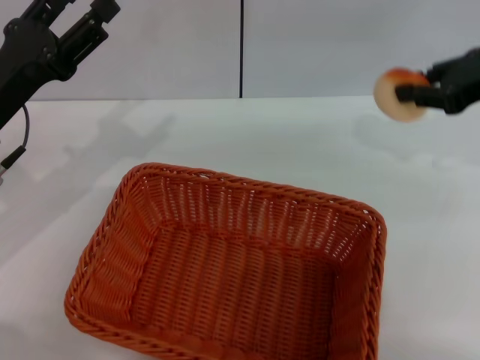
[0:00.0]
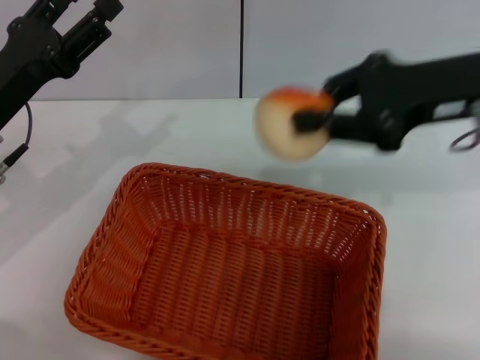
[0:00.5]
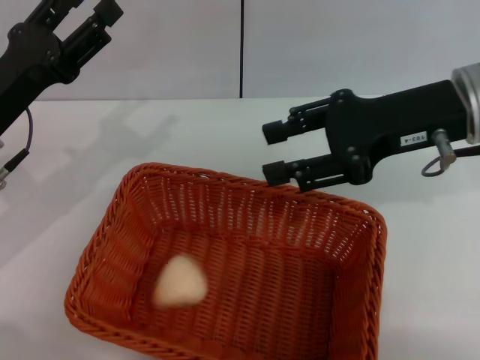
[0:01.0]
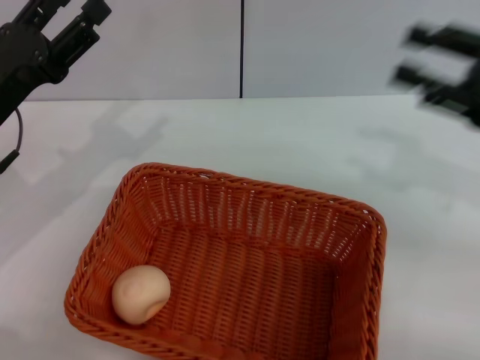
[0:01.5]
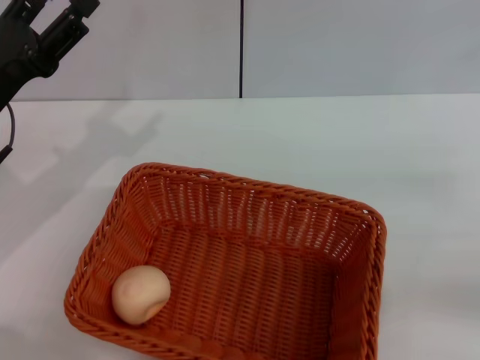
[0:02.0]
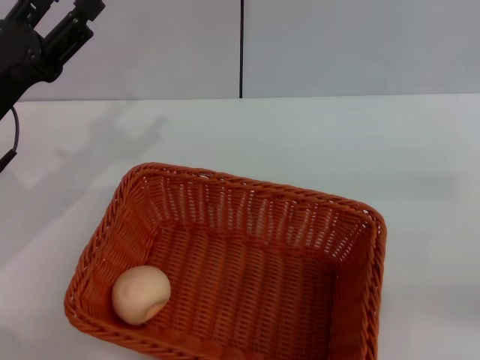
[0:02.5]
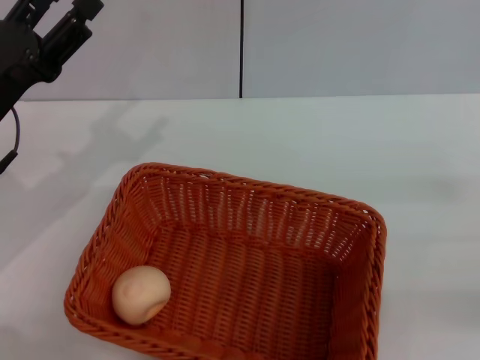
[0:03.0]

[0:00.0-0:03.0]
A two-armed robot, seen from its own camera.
Step, 0:00.0 to 0:01.0: Place the egg yolk pastry into the basket with the right gripper.
0:00.0 to 0:01.5: The right gripper goes roughly 5 cm backward, travels to the left and back again, approximately 10 cm each way, and opens.
0:01.5 to 0:03.0: The right gripper goes some 15 cm downward, backward and to the right.

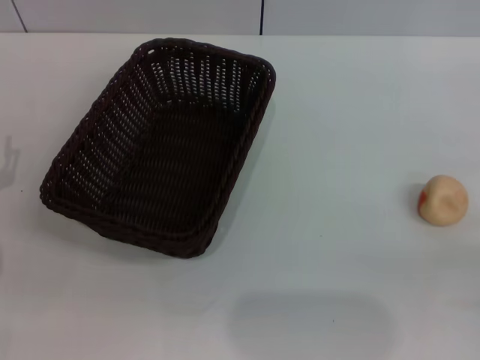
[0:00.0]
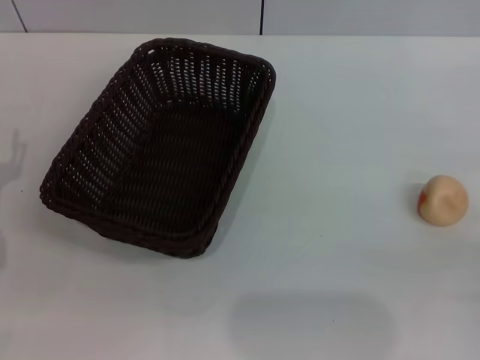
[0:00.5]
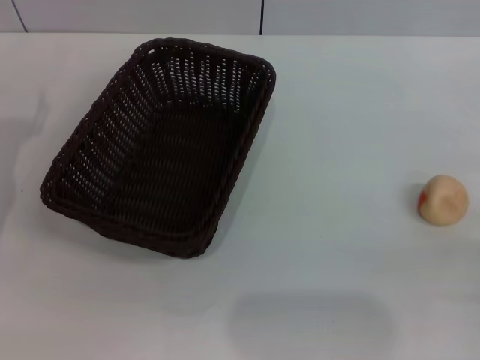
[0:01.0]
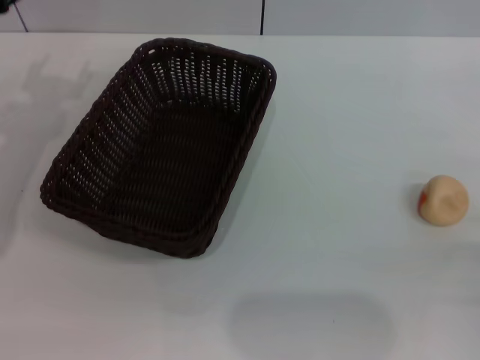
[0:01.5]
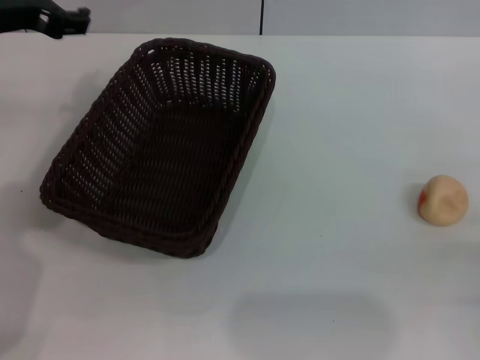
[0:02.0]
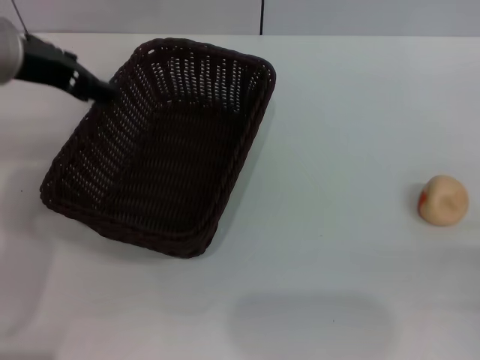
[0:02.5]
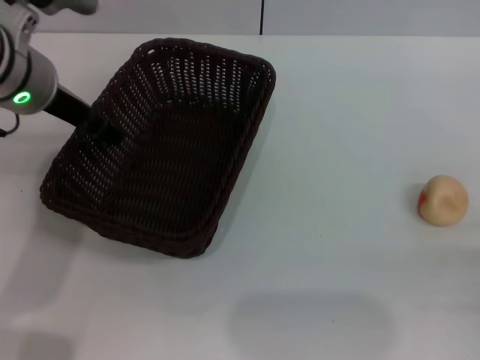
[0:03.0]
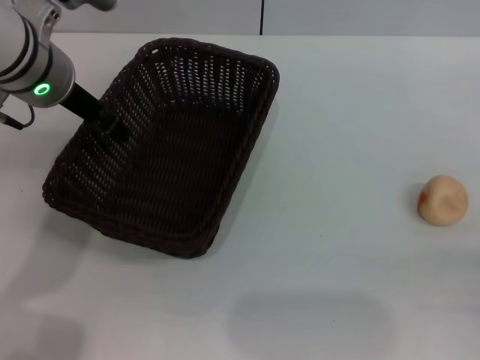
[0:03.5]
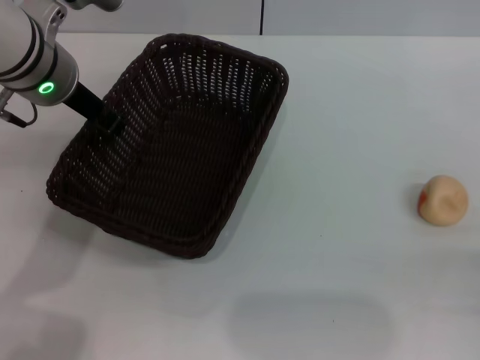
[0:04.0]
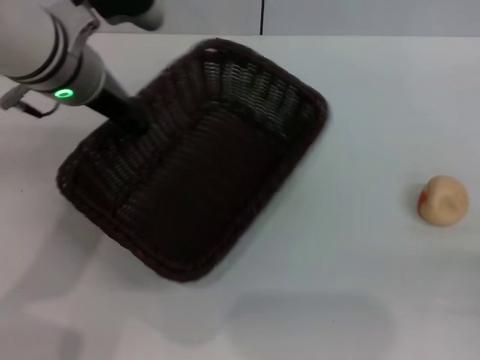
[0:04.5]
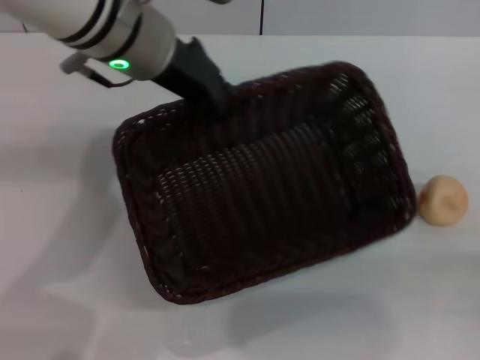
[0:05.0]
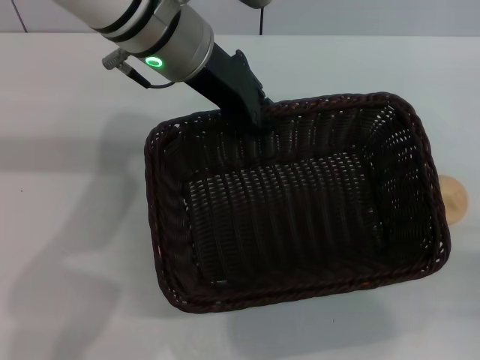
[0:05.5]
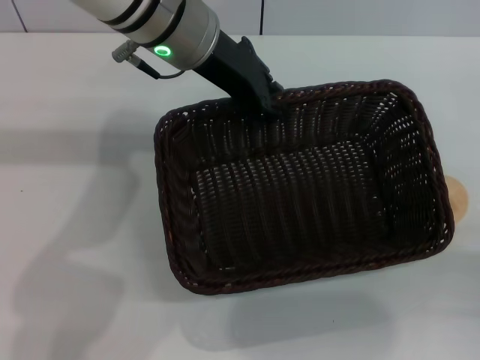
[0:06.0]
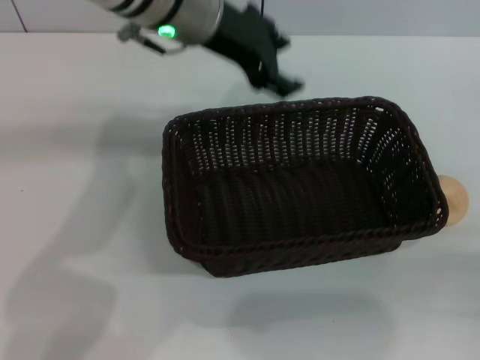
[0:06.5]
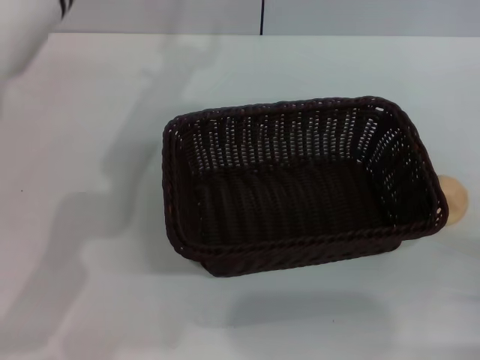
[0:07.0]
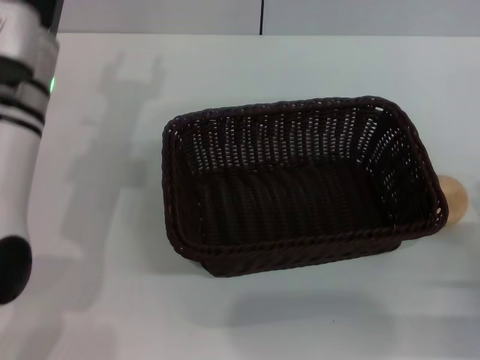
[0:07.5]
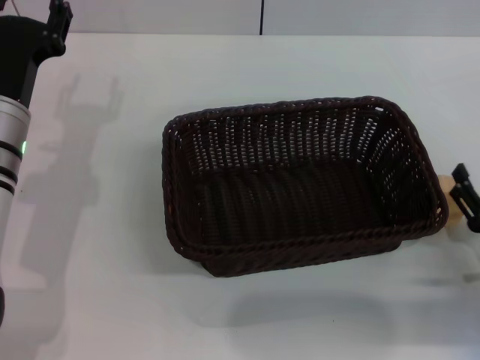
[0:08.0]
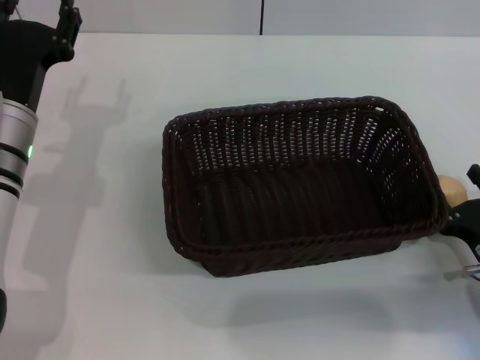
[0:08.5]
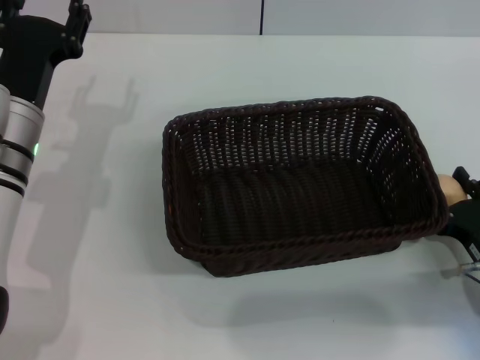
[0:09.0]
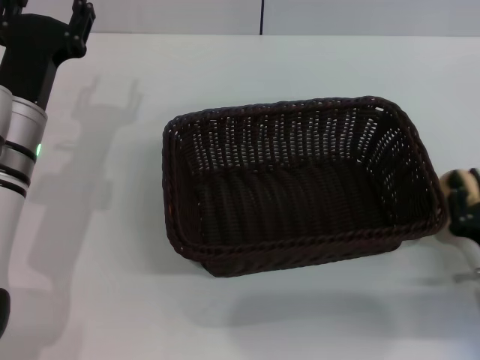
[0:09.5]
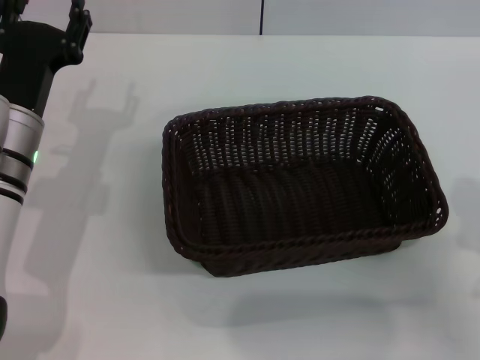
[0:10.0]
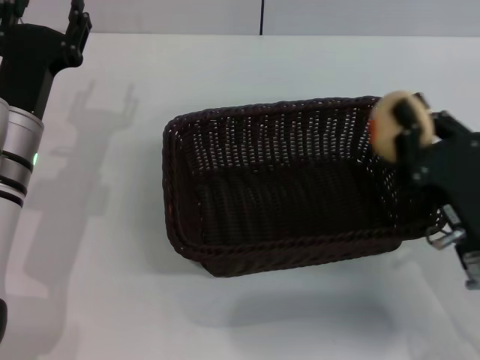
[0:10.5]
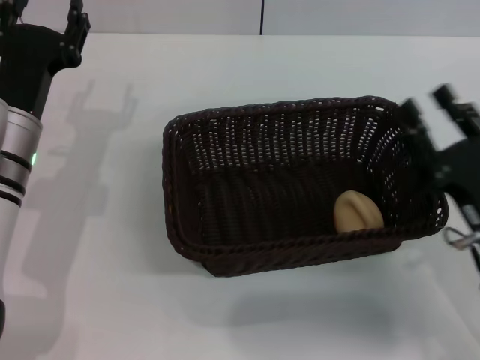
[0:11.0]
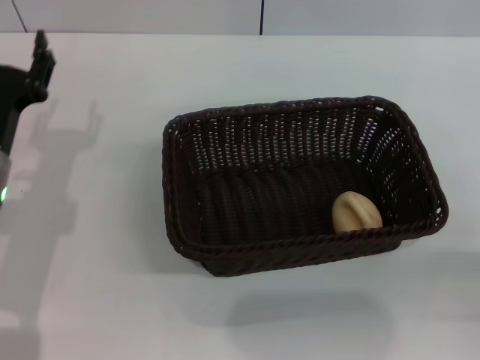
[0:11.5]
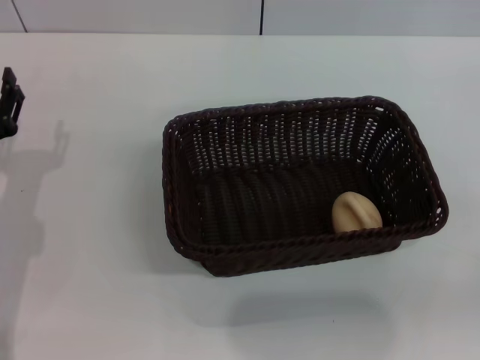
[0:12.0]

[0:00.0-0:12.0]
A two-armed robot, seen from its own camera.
Step, 0:00.0 to 0:06.5: Move the basket to the center of view with the left gripper.
Step, 0:07.0 to 0:09.5: Pick up the egg yolk pastry with the right gripper.
Step, 0:10.0 to 0:11.0: Place the egg yolk pastry into the basket with the right gripper.
0:00.0 to 0:02.0: The left gripper shifts some 25 cm upward and forward.
0:02.0 to 0:04.0: The left gripper goes roughly 5 cm to the right, and closes up.
0:04.0 to 0:06.0: The left gripper is displaced to the right by about 10 cm.
0:06.0 to 0:08.0: The right gripper travels forward and to the left by roughly 10 cm; the left gripper travels to the left, downward and backward by some 20 cm, and opens.
0:08.0 to 0:10.0: The right gripper changes place by roughly 5 cm, and closes its fingers.
0:10.0 to 0:12.0: The left gripper travels to the left and backward by approximately 10 cm; the right gripper goes roughly 10 cm to the right and backward, and opens up.

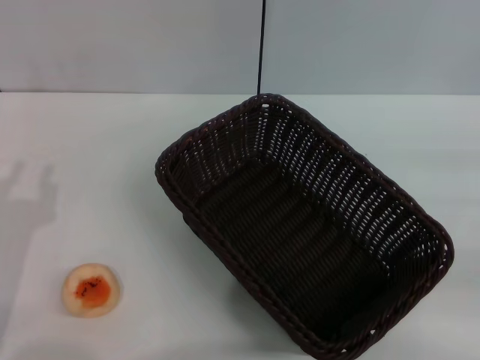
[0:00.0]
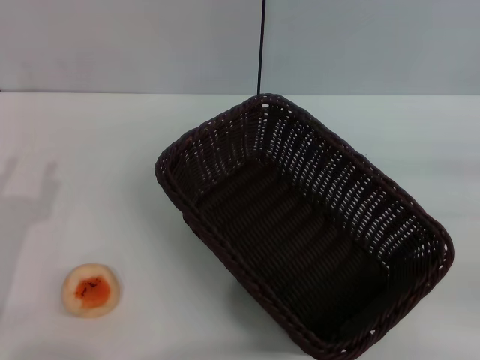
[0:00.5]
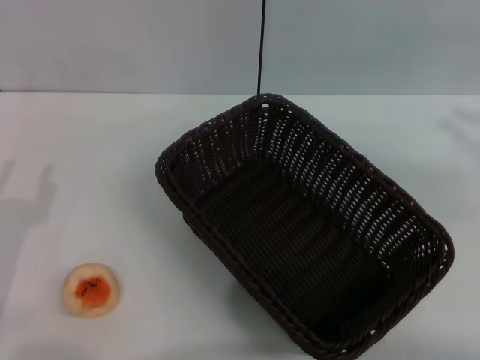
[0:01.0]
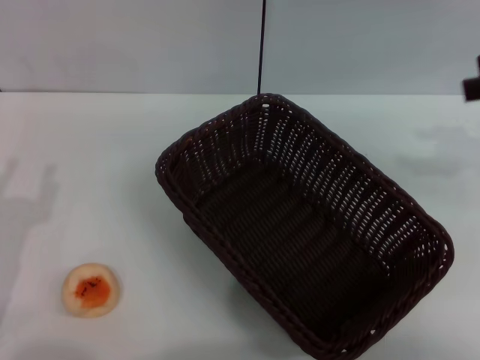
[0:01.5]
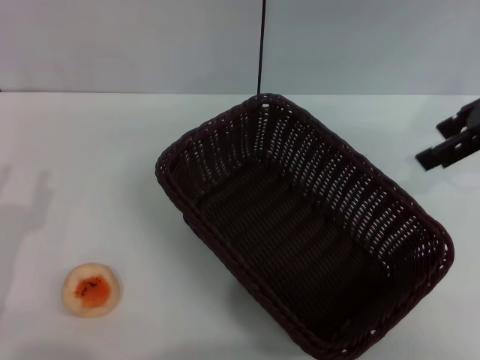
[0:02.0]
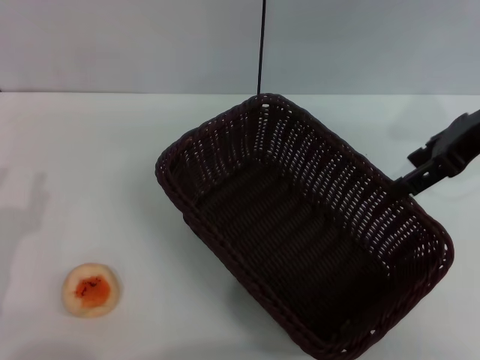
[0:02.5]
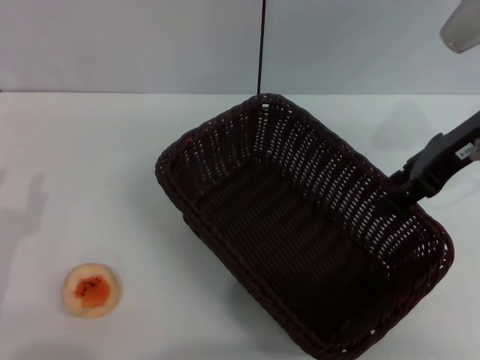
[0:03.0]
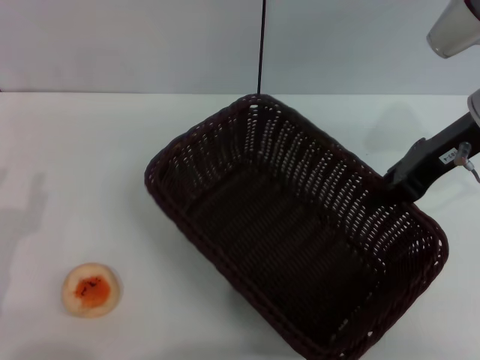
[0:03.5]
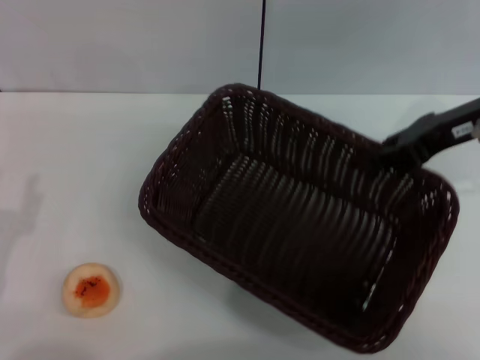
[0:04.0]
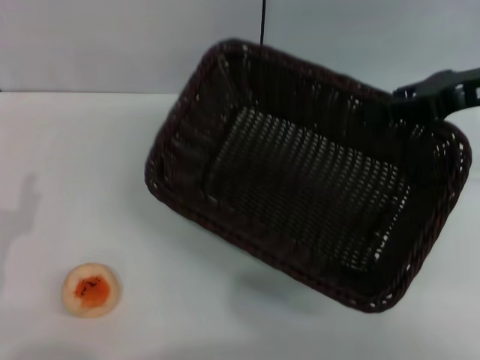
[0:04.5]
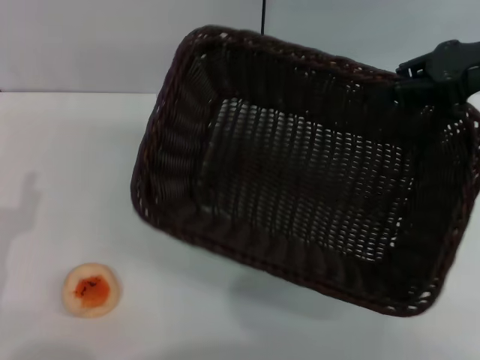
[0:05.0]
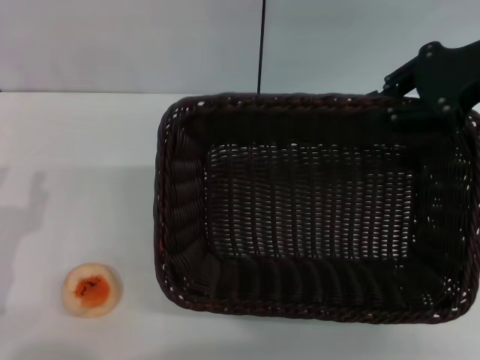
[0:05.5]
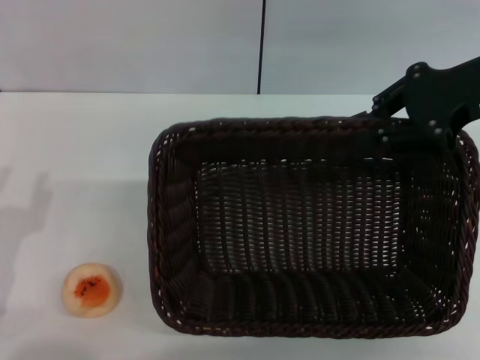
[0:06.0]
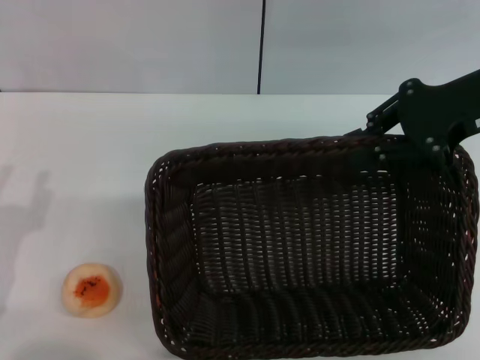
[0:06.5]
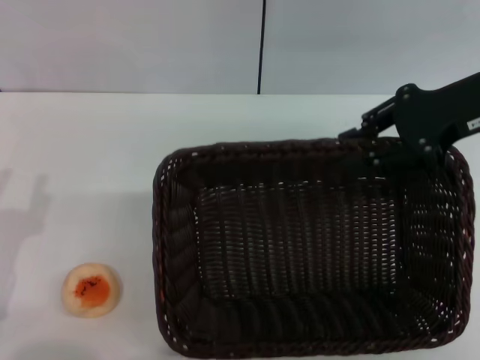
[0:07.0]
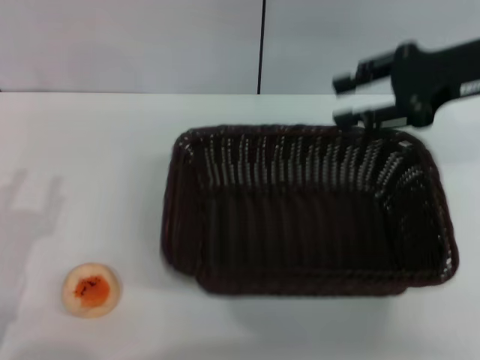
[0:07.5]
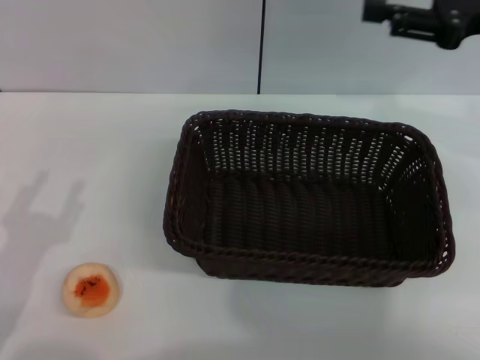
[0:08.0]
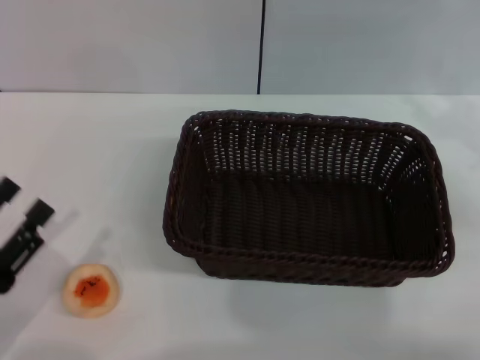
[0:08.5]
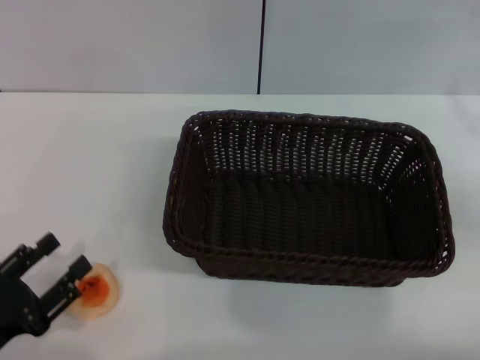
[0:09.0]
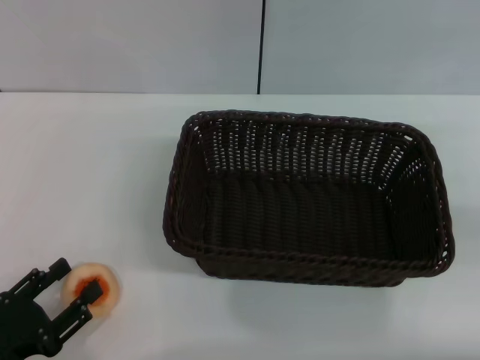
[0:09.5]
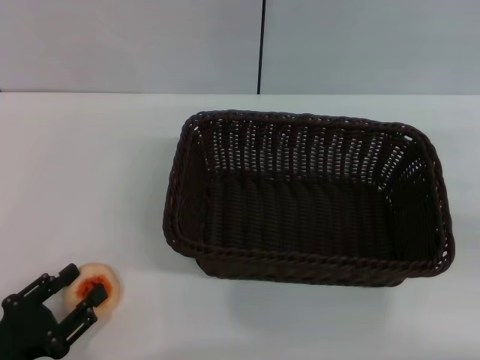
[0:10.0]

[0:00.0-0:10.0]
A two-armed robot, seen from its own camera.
Step, 0:00.0 to 0:07.5: Move the basket to the center of view with the right gripper.
0:00.0 to 0:02.0: The right gripper moves to the left, upward and forward, about 25 cm, and opens up.
0:02.0 to 0:04.0: The right gripper travels downward by about 5 cm, and closes up.
0:06.0 to 0:08.0: The right gripper opens its fingers.
0:08.0 to 0:10.0: The right gripper is displaced to the right, backward and downward by roughly 15 cm. The left gripper shifts some 5 cm downward.
